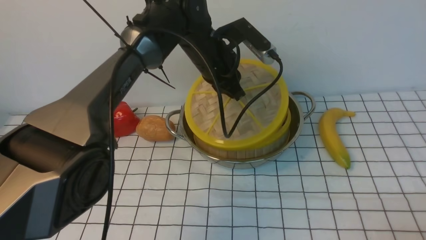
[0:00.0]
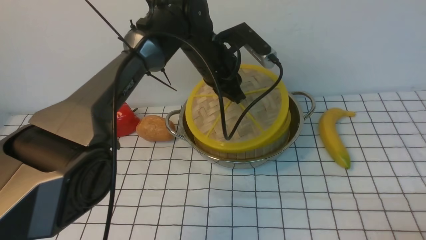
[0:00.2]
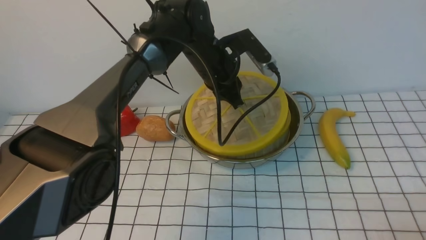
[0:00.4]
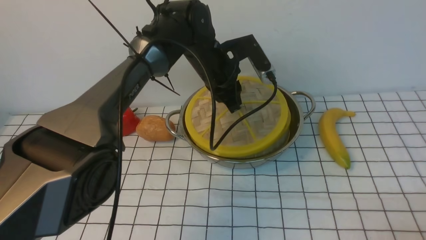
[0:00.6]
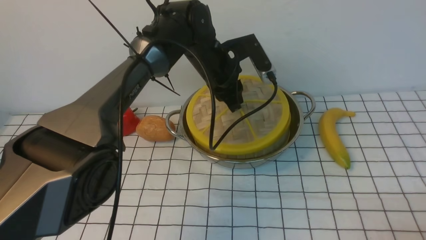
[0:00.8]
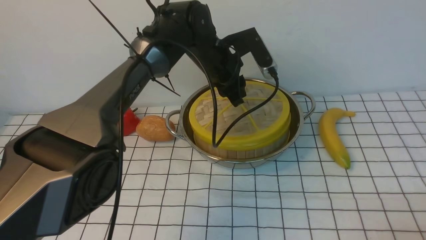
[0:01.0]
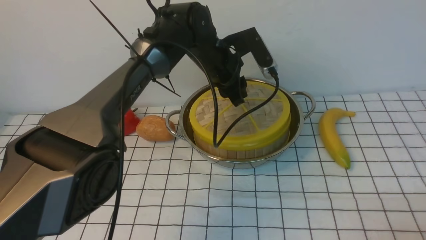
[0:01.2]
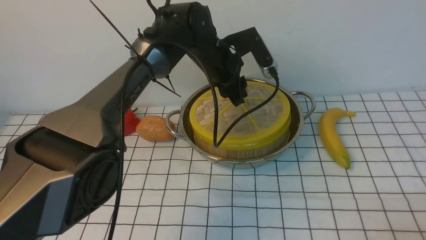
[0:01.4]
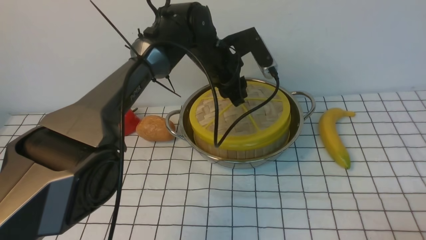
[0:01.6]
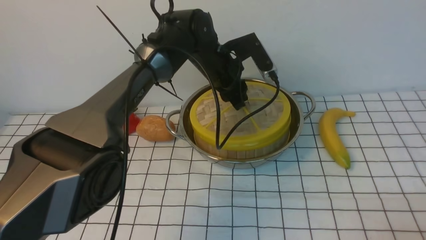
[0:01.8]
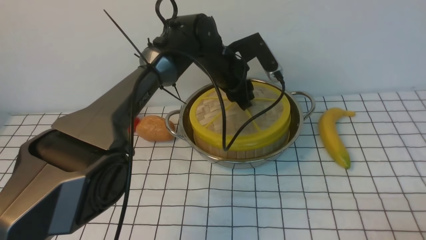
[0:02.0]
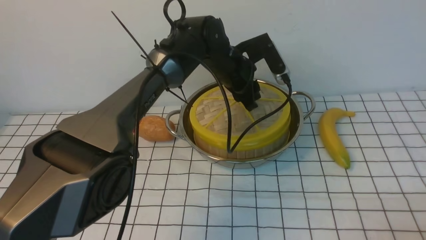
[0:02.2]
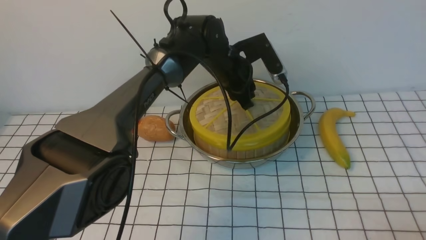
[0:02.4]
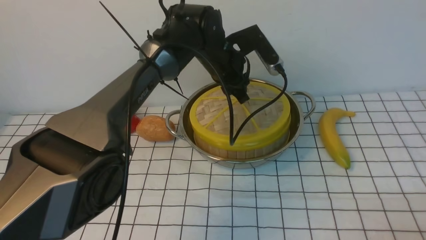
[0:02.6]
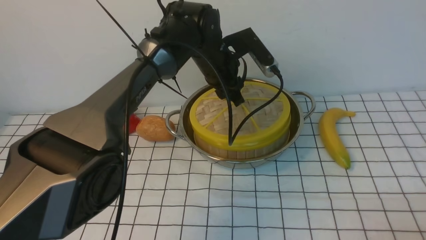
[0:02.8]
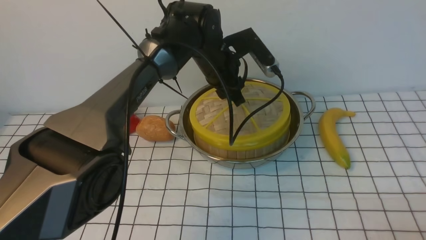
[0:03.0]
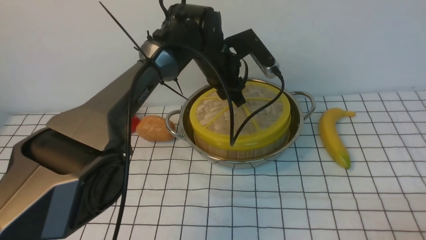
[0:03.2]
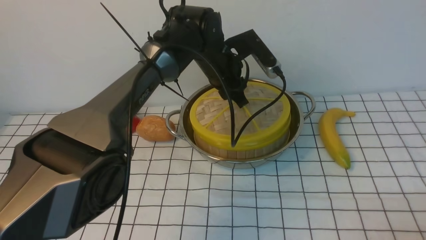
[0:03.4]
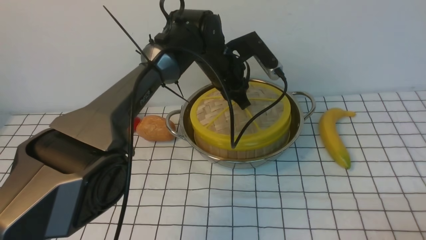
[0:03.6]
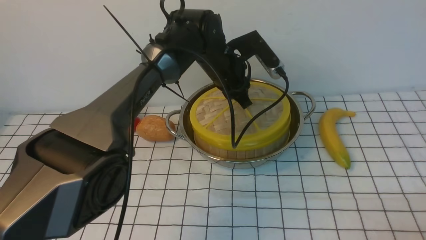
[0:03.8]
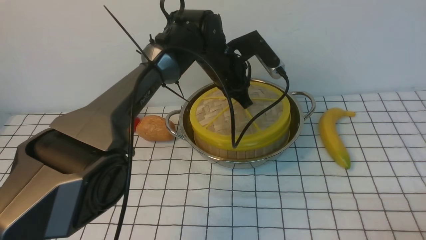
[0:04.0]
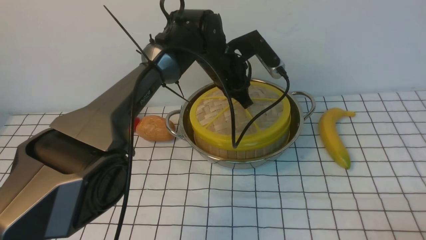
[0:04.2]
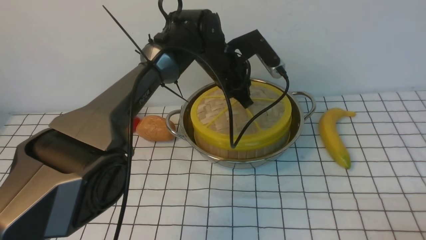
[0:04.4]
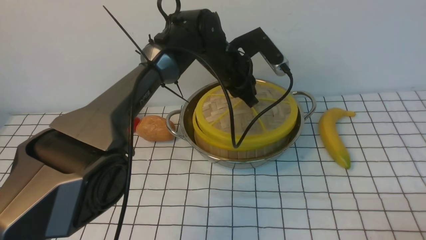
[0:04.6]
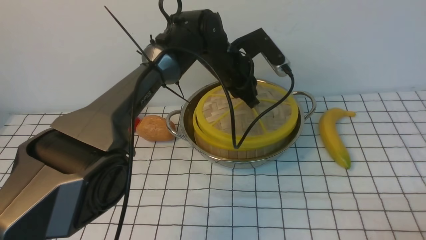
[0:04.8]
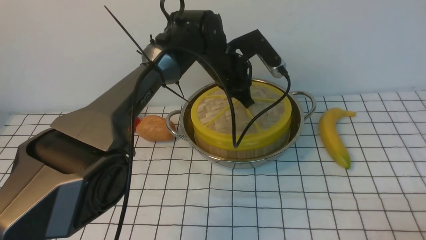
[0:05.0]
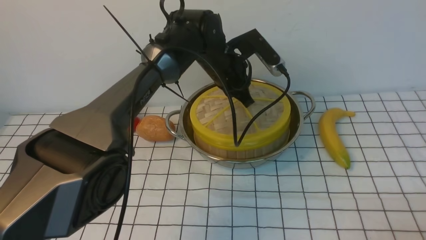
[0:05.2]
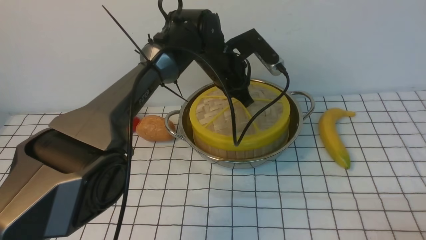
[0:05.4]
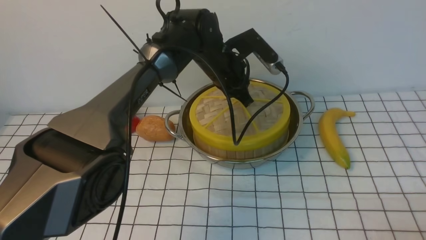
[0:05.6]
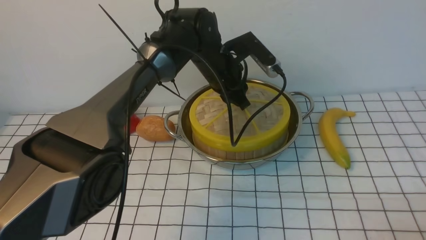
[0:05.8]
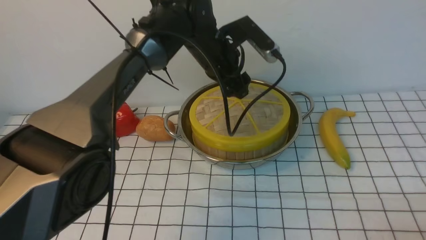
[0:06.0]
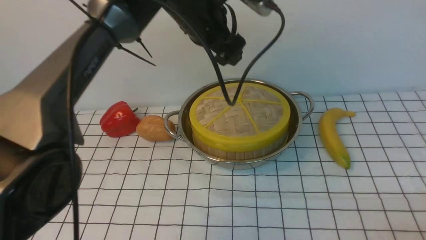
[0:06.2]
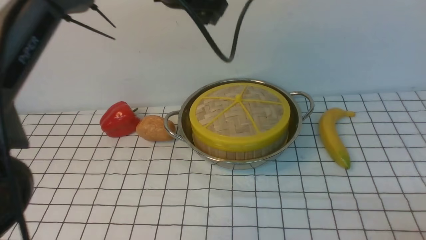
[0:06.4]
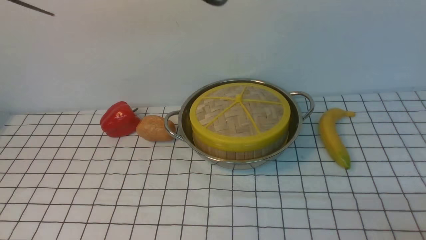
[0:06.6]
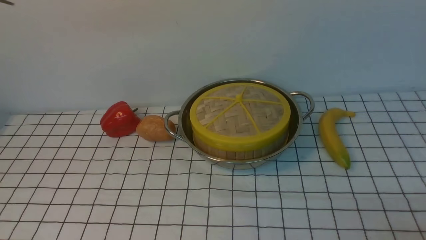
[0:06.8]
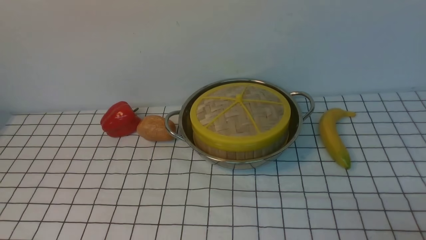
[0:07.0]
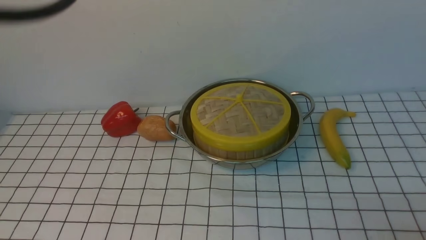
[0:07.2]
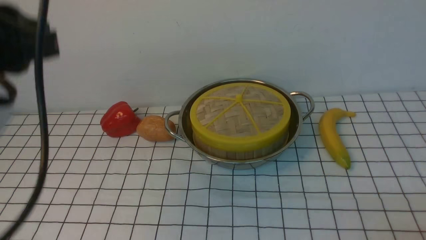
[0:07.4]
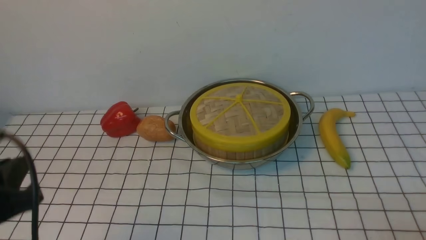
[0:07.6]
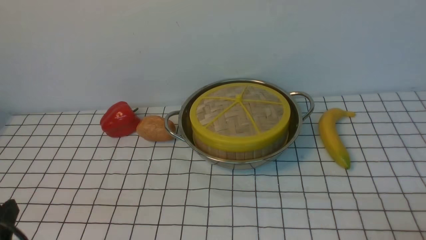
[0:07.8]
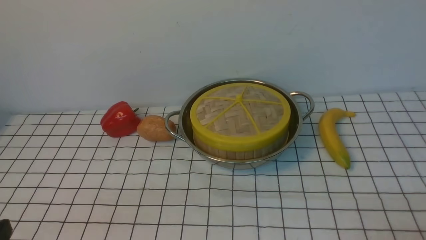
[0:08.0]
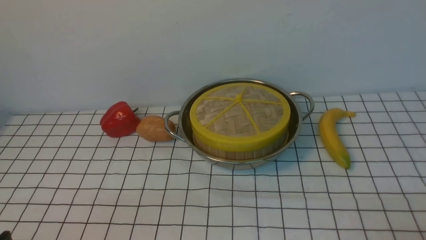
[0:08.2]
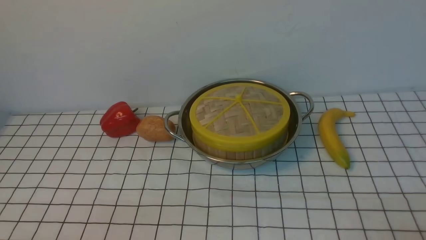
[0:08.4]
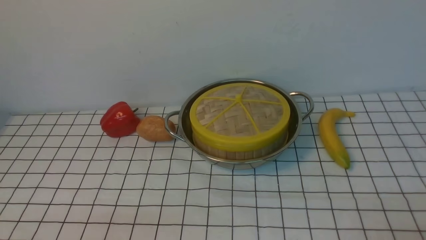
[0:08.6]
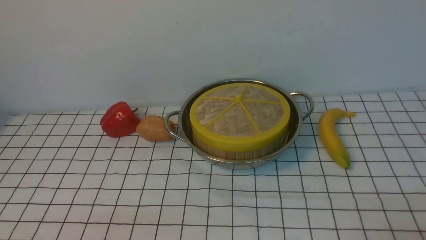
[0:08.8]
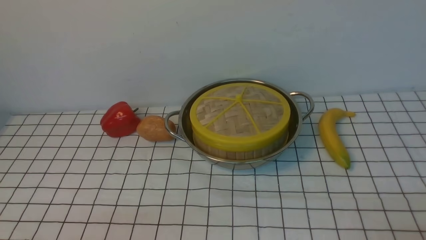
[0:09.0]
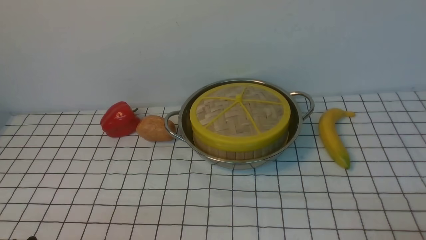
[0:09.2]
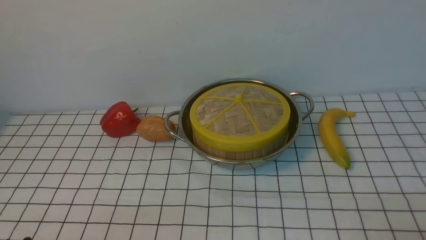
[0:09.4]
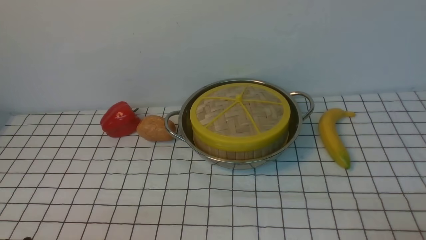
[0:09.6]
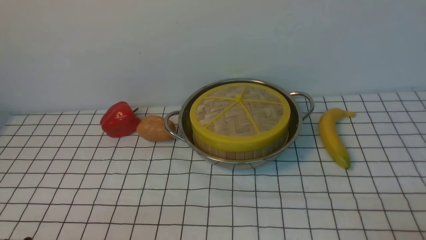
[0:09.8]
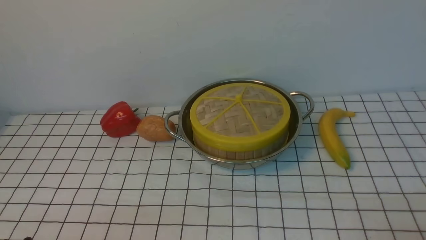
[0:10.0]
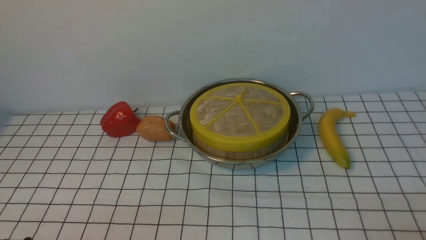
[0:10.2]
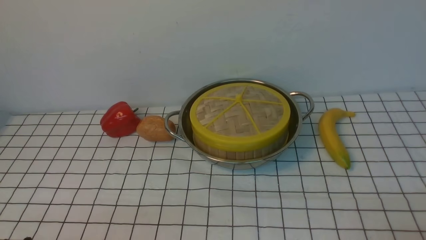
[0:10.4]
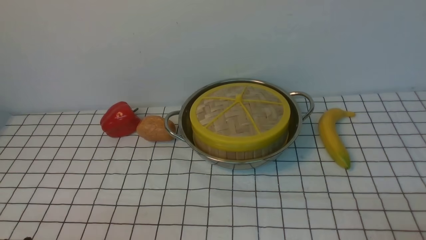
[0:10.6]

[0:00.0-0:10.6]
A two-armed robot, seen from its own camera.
Task of the whole recording: place the steamer in the pot on the white tablecloth, and put the lid on the steamer.
Step, 0:00.0 to 0:06.0: use the left arm to place the steamer lid on the steamer.
0:00.0 to 0:01.6: The left gripper opens up.
0:01.6 to 0:03.0: The grippers stay close to where they were, moving slightly.
0:03.0 to 0:04.6: The left gripper closes its fingers.
0:04.6 to 0:06.0: The left gripper moves upward, some 5 cm, and opens its fingers.
0:06.0 to 0:07.6: The left gripper travels backward and to the left by some 40 cm, and closes its fingers.
0:07.6 to 0:09.0: The left gripper is displaced downward and backward by approximately 15 cm.
0:09.0 to 0:10.6: Neither gripper changes place.
